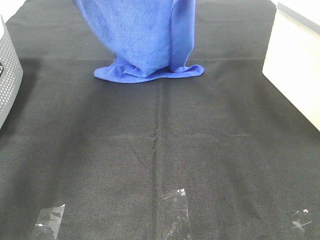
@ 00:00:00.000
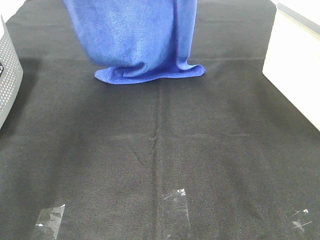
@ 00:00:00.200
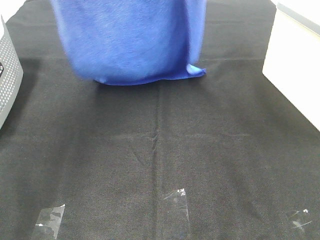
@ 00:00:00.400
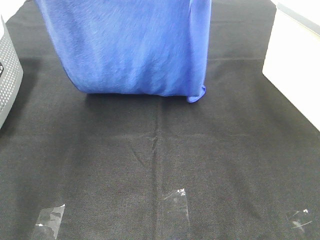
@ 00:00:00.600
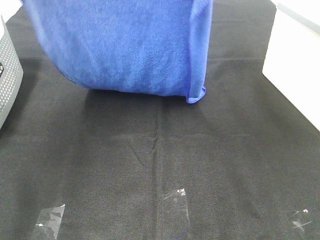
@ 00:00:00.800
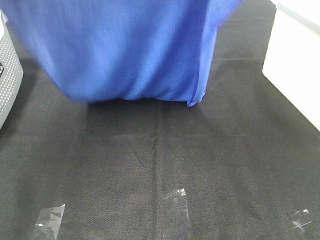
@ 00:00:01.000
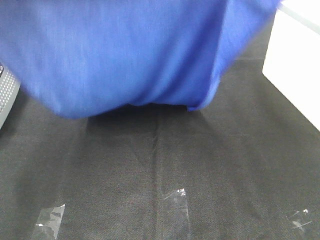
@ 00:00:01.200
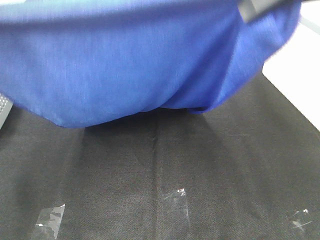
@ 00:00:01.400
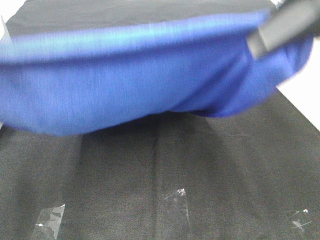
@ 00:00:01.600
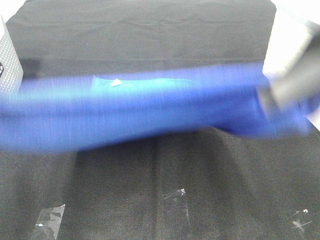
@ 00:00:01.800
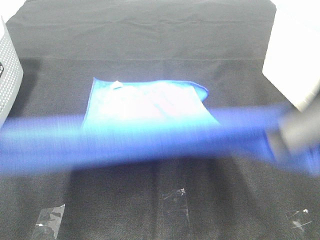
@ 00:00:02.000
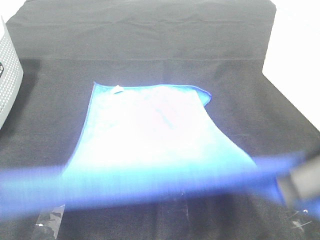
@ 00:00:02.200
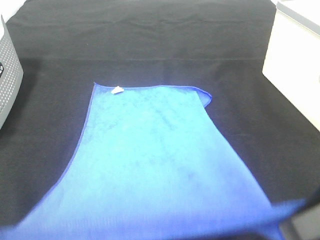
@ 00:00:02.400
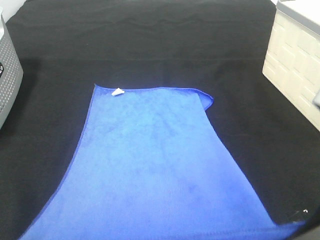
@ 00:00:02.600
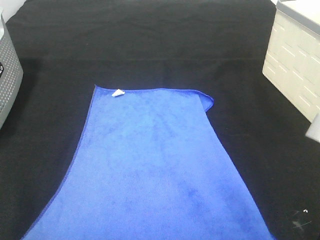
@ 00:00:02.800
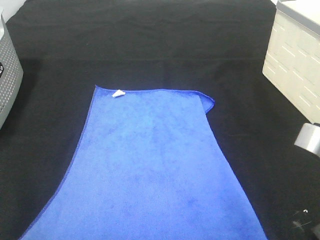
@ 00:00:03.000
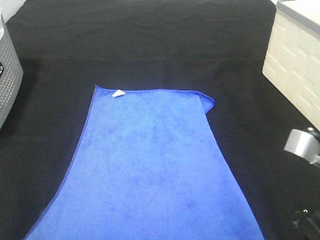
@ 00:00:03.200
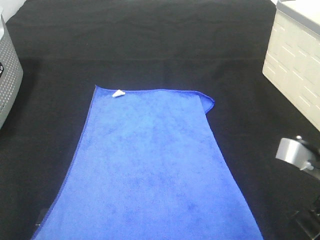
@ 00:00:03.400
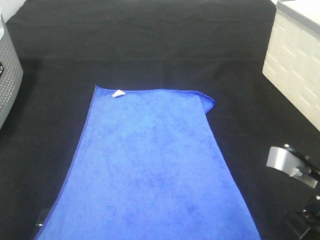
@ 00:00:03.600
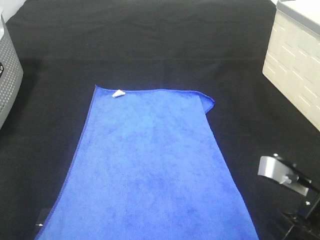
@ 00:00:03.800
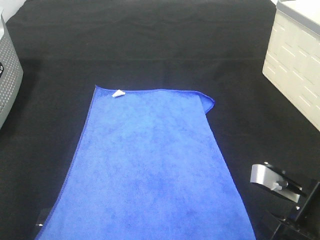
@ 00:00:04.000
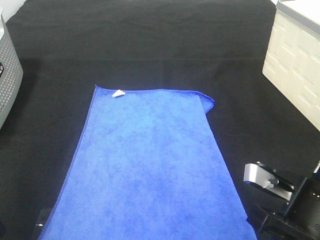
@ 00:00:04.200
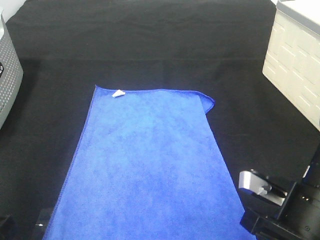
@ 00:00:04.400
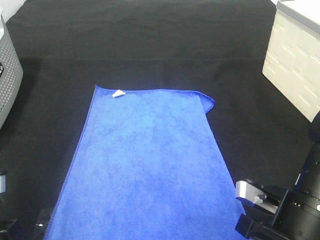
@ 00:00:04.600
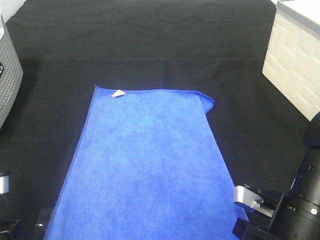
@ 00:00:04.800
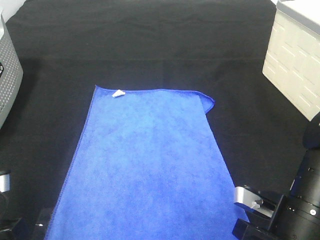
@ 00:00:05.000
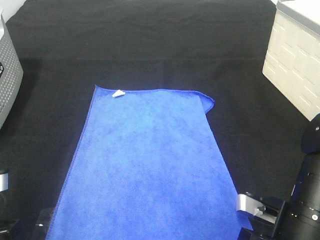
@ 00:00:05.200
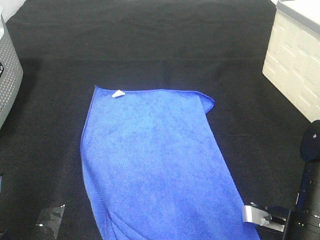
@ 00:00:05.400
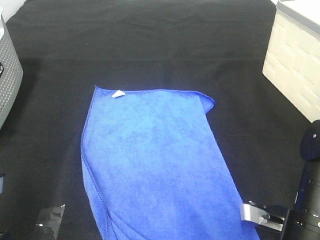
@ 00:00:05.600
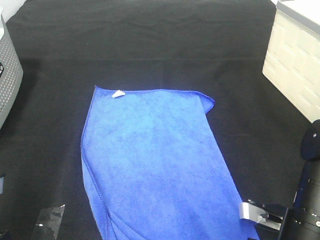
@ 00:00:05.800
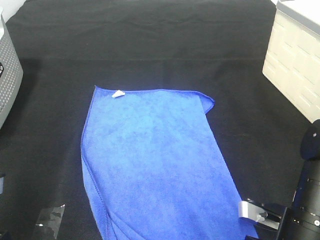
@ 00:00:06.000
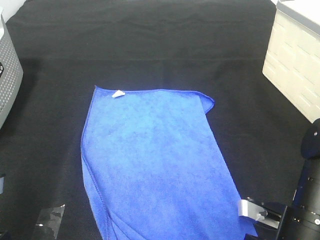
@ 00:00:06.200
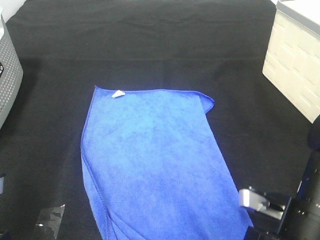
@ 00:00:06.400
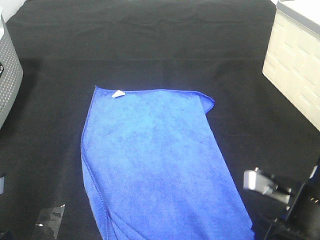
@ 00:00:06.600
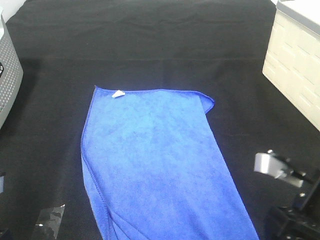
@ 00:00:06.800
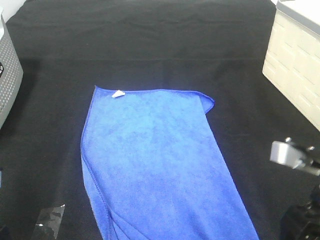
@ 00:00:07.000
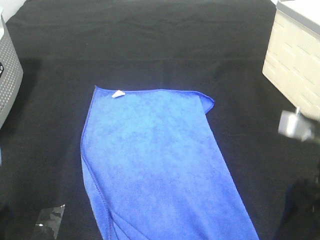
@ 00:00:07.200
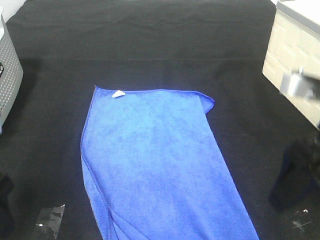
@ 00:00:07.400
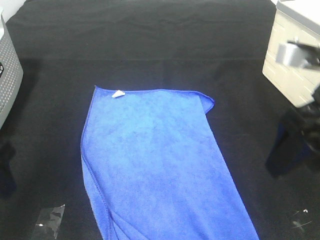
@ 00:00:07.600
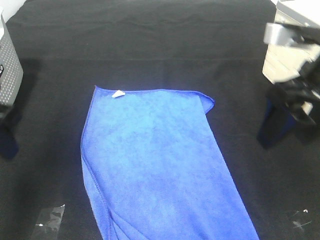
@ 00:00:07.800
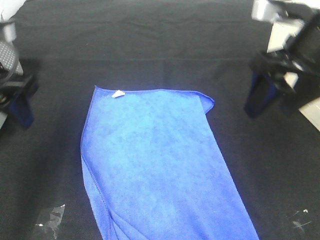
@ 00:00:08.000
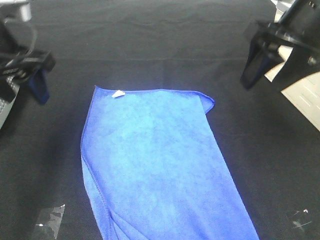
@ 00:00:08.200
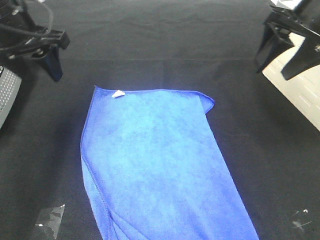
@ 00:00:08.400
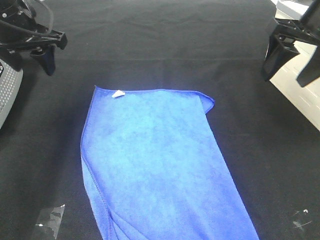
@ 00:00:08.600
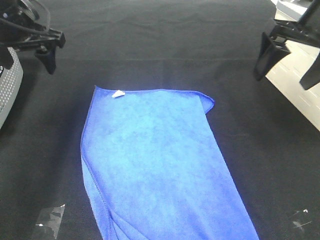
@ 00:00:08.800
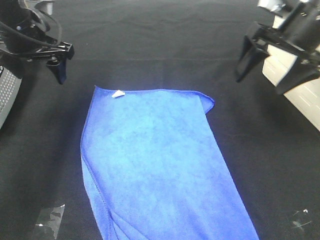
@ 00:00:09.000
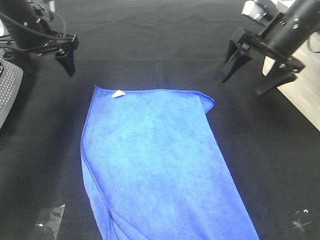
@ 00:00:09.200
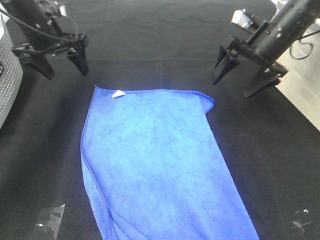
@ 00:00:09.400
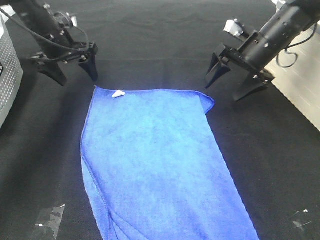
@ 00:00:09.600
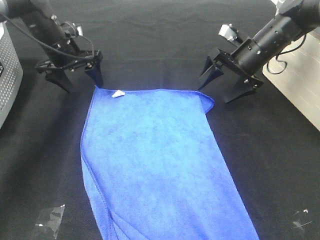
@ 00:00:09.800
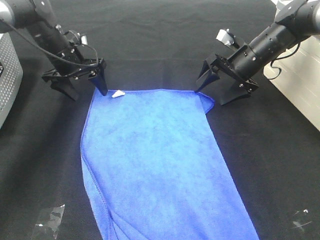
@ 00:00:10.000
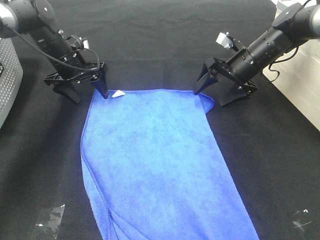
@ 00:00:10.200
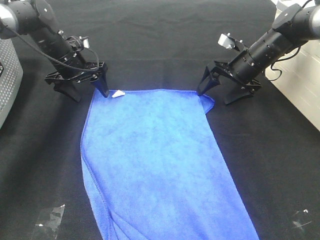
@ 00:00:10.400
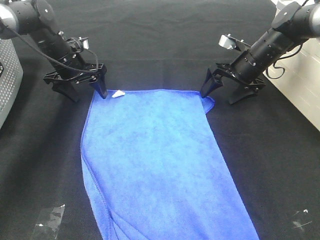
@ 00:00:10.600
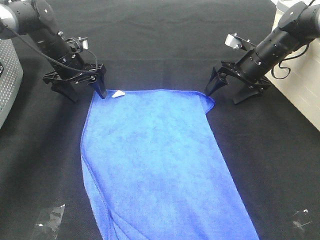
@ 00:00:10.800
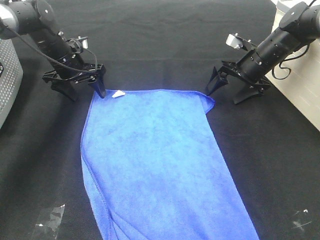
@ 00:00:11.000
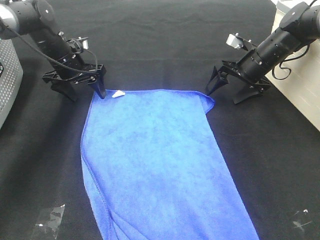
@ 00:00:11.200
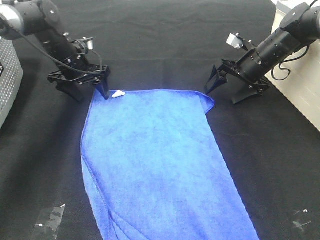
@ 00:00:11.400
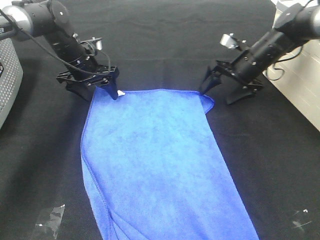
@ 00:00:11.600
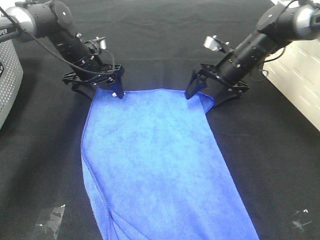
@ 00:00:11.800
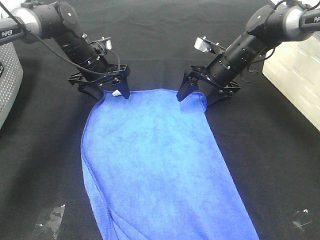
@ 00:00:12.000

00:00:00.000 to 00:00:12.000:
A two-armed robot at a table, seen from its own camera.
Task of the whole recording: Remove the towel and place it.
Step, 00:00:01.200 to 00:00:09.000: Left hand:adjust the blue towel.
Step, 00:00:01.200 to 00:00:09.000: Right hand:adjust the blue towel.
00:00:00.000 to 00:00:01.600: The two grippers go some 25 cm backward.
00:00:01.600 to 00:00:03.000: Both grippers move downward and backward, some 15 cm.
00:00:03.000 to 00:00:04.400: The right gripper travels downward by some 10 cm; the left gripper moves downward and forward, about 10 cm.
00:00:04.400 to 00:00:06.000: The right gripper opens its fingers.
00:00:06.000 to 00:00:07.600: The left gripper moves upward and forward, some 10 cm, and opens up. The right gripper travels upward by approximately 20 cm.
00:00:07.600 to 00:00:09.000: The two grippers go roughly 20 cm forward.
00:00:09.000 to 00:00:10.400: Both grippers travel together downward and forward, about 15 cm.
00:00:10.400 to 00:00:12.000: The left gripper travels to the right by approximately 5 cm. The right gripper is displaced to the left by some 5 cm.

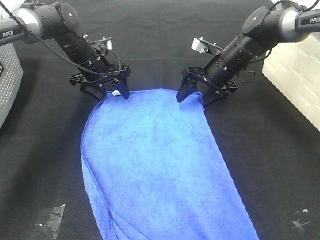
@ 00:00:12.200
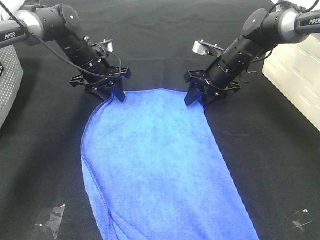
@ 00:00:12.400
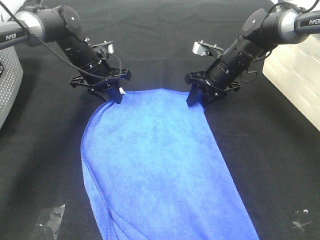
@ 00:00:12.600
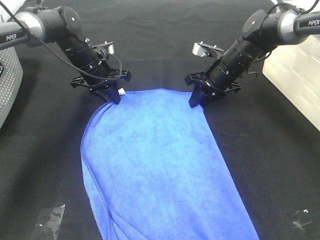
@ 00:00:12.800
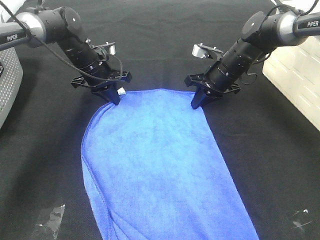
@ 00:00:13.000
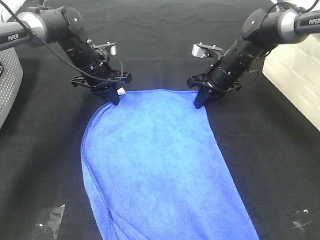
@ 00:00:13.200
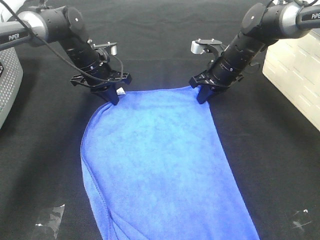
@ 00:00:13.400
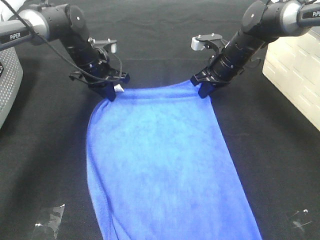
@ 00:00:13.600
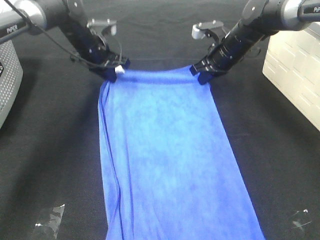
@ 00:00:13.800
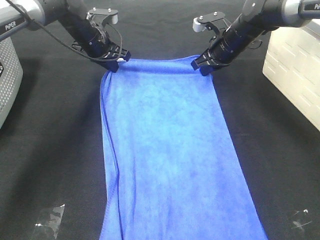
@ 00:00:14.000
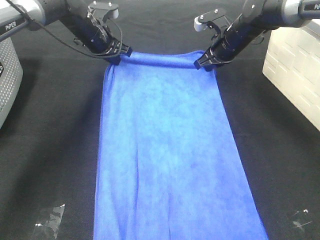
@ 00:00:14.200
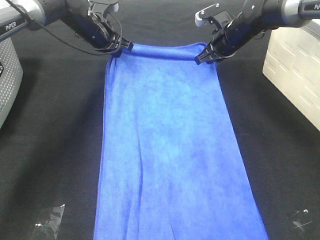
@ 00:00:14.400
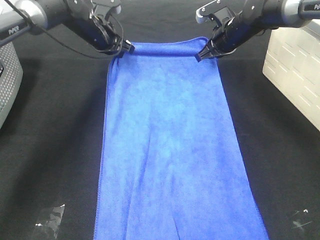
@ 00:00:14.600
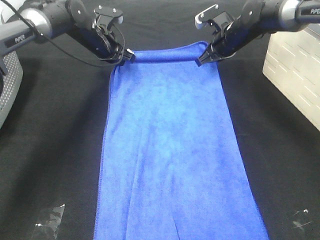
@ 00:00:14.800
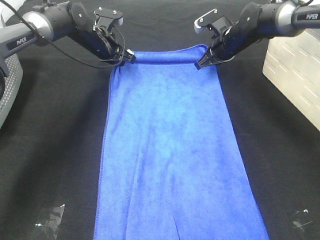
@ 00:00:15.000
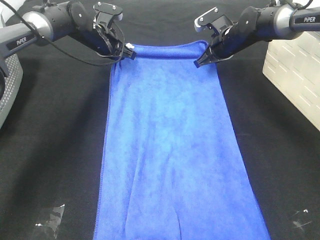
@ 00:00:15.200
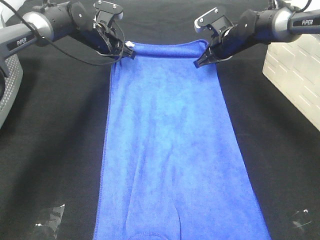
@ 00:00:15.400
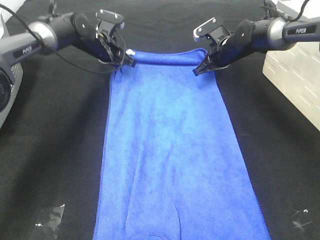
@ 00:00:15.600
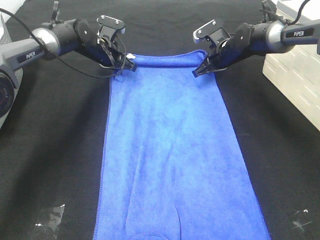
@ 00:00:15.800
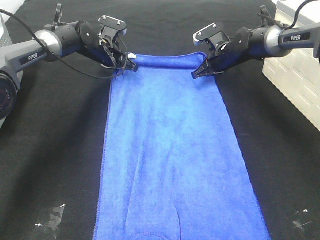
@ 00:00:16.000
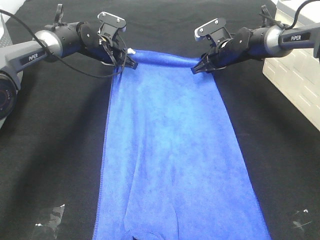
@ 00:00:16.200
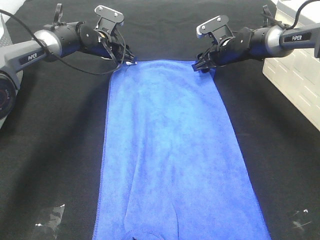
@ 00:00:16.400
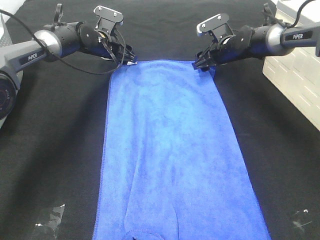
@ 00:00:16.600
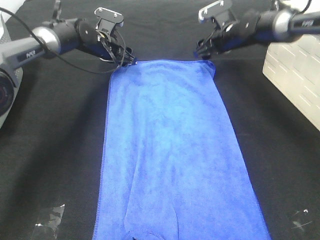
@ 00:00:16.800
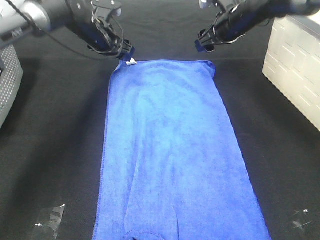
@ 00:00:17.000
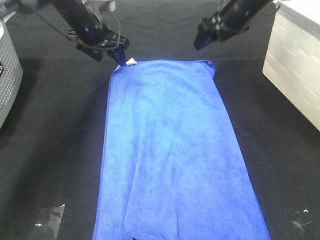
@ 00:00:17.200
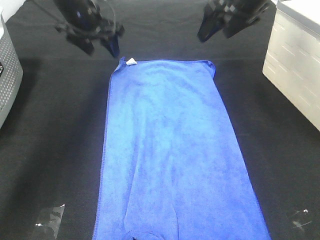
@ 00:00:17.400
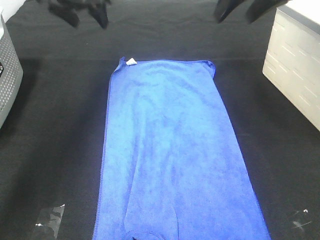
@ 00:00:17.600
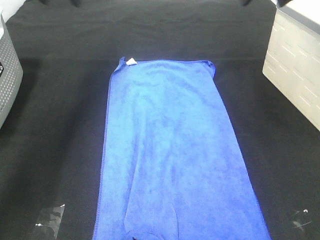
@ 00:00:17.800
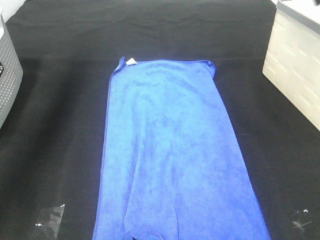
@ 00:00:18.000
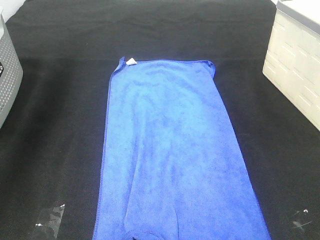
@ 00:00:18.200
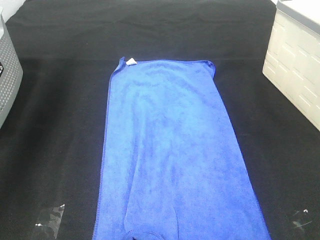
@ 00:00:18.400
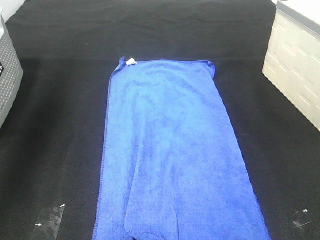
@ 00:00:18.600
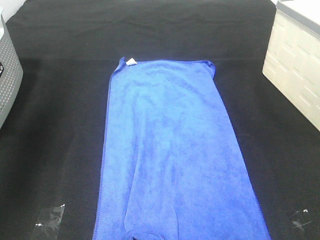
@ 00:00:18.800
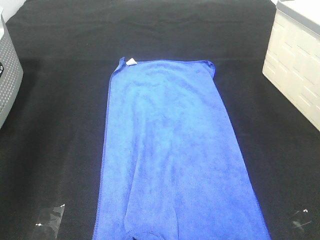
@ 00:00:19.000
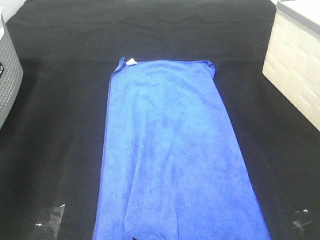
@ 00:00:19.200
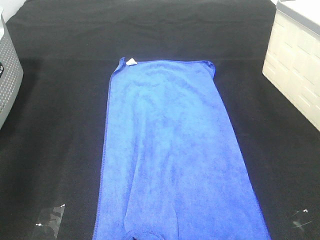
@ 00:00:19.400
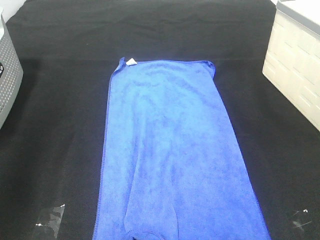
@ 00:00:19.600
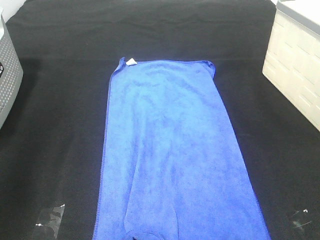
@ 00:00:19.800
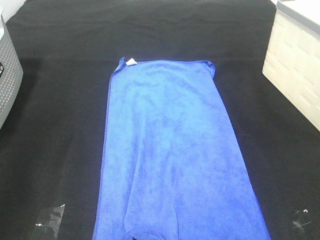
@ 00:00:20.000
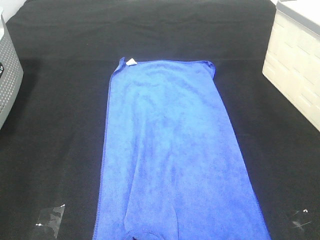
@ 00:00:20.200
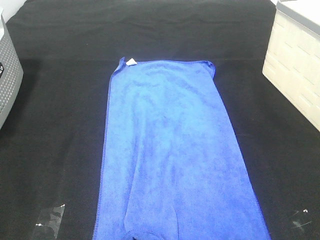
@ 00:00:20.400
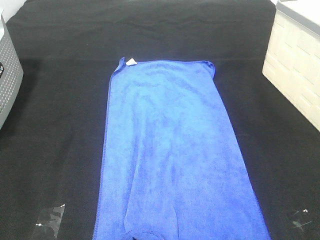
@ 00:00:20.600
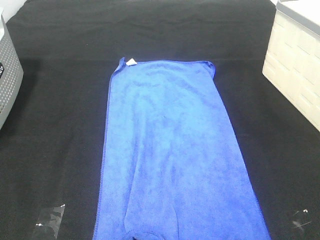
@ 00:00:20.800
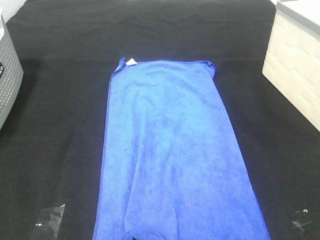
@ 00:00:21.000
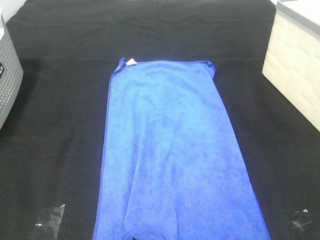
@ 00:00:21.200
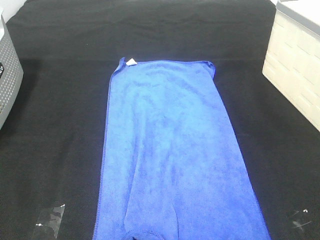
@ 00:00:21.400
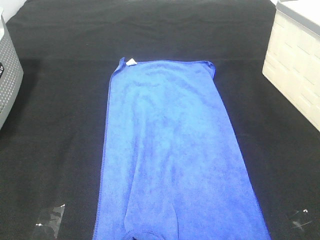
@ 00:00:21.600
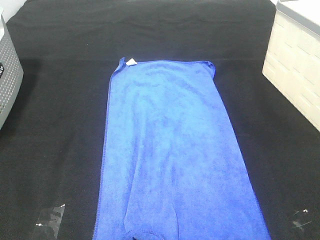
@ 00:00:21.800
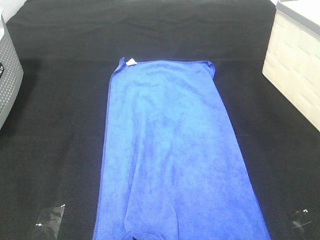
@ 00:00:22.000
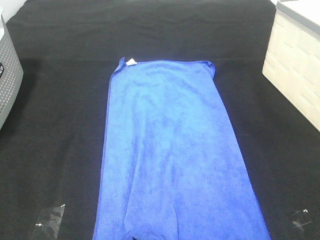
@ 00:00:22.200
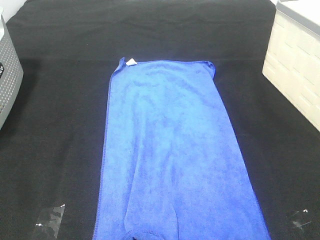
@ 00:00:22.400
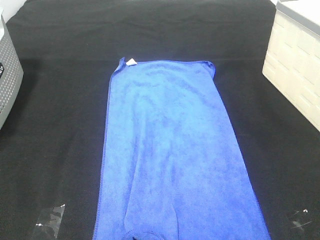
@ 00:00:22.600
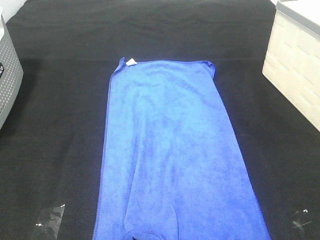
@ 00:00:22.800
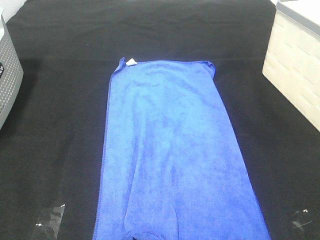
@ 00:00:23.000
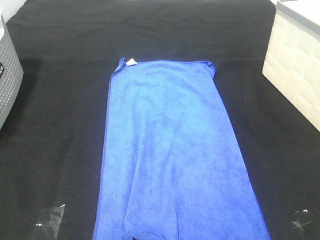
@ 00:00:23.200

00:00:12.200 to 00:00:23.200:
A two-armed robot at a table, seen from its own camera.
Task of the whole recording: Remove the towel and place it.
00:00:12.200 to 00:00:13.800: The left gripper closes. Meanwhile the right gripper closes.
00:00:15.400 to 00:00:17.000: The right gripper is displaced upward by approximately 5 cm, and opens its fingers. Meanwhile the left gripper opens up.
00:00:17.000 to 00:00:18.400: The right gripper heads upward, backward and to the right, covering approximately 30 cm, while the left gripper goes approximately 30 cm upward, to the left and backward.
00:00:18.400 to 00:00:20.000: The left gripper travels backward by roughly 30 cm.
00:00:21.600 to 00:00:23.200: Neither gripper changes place.
